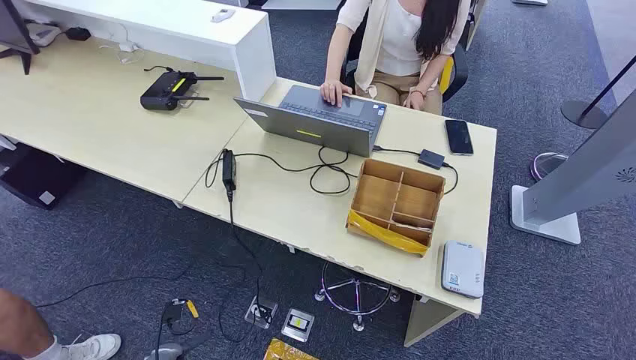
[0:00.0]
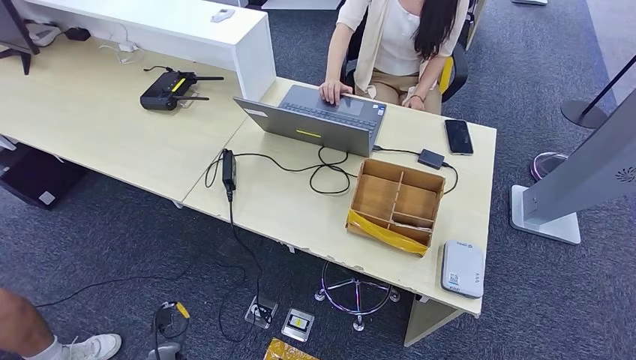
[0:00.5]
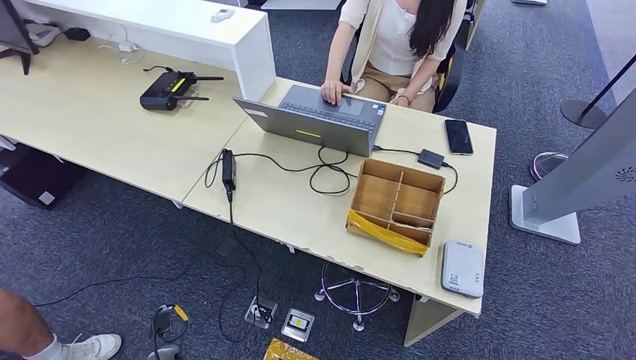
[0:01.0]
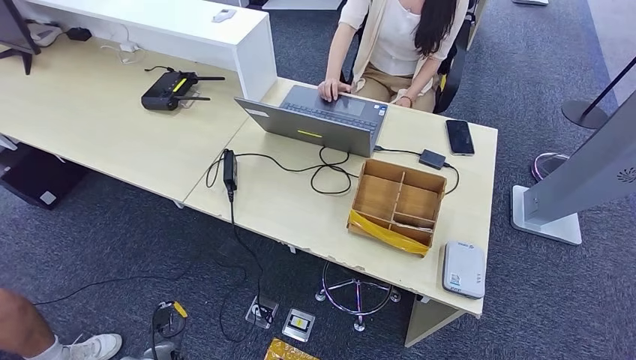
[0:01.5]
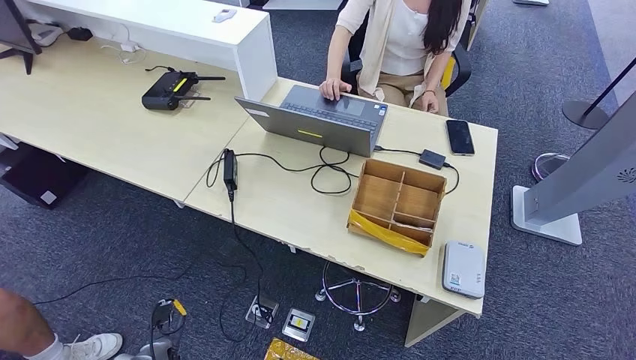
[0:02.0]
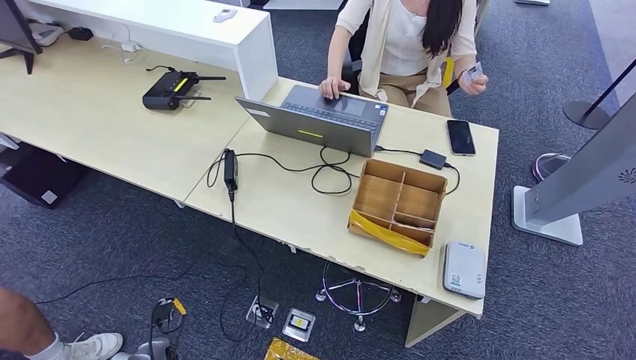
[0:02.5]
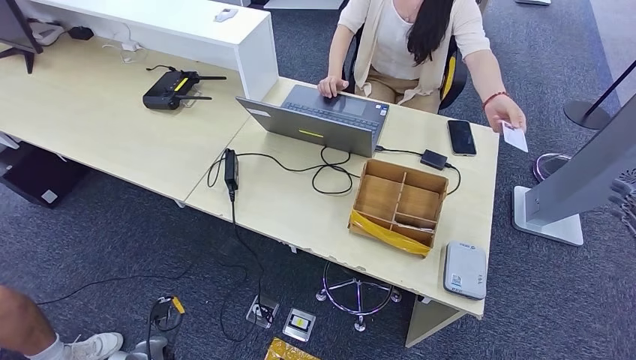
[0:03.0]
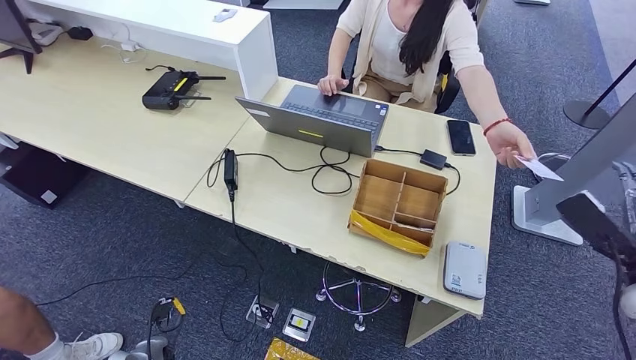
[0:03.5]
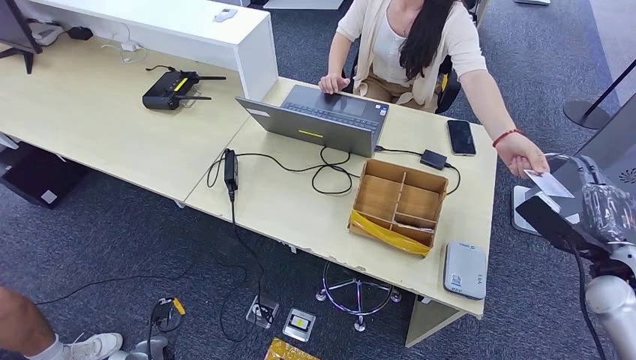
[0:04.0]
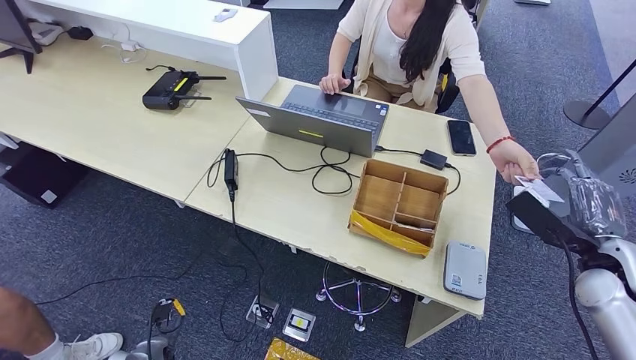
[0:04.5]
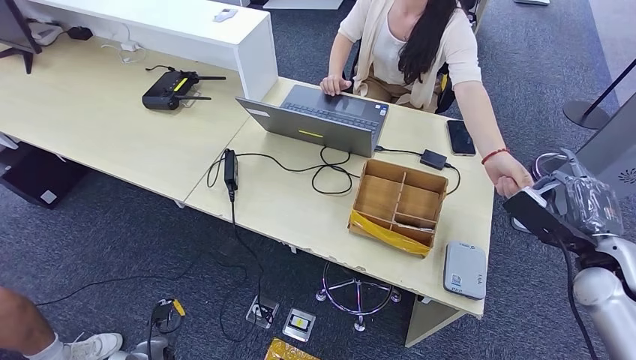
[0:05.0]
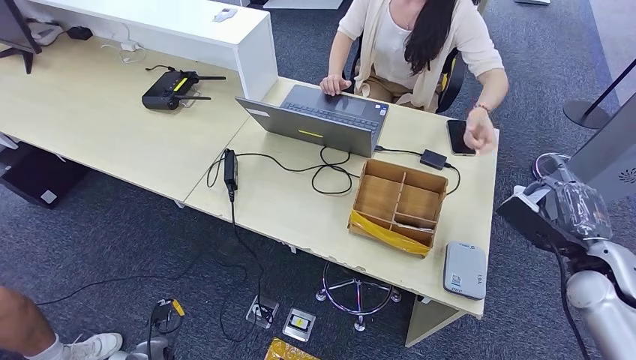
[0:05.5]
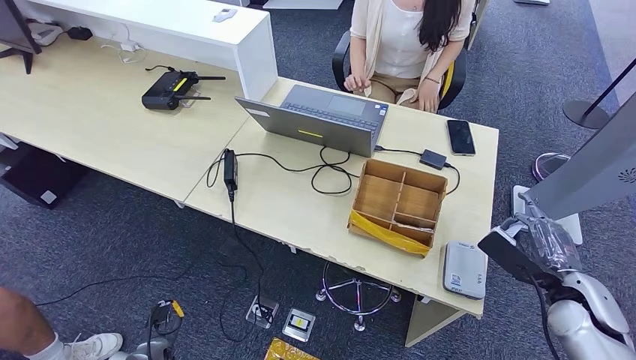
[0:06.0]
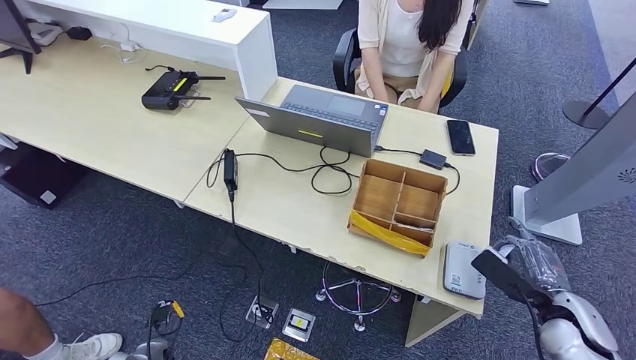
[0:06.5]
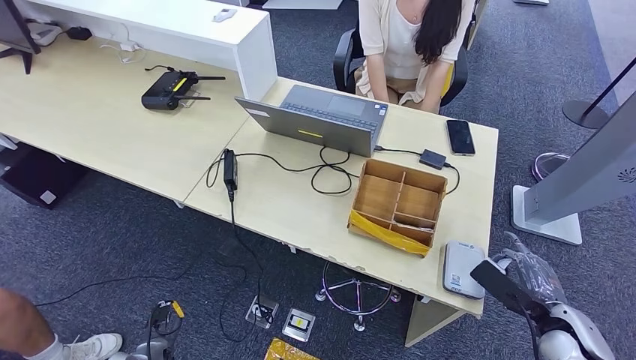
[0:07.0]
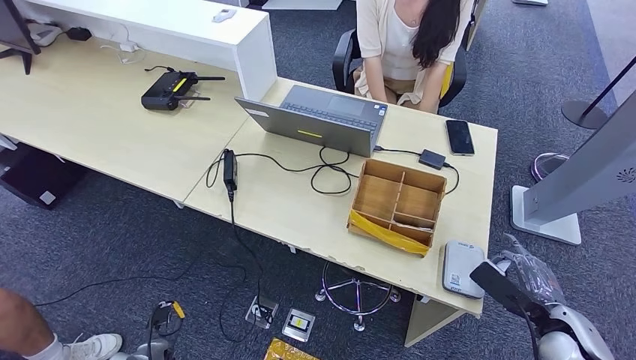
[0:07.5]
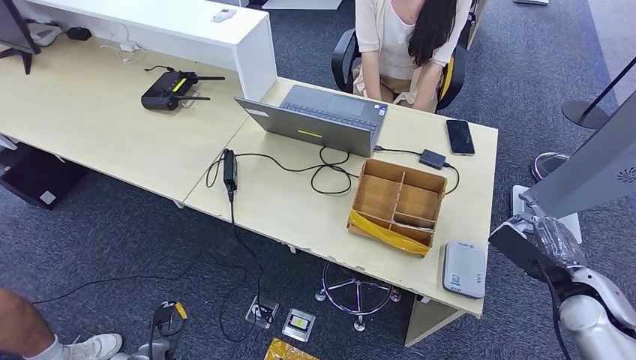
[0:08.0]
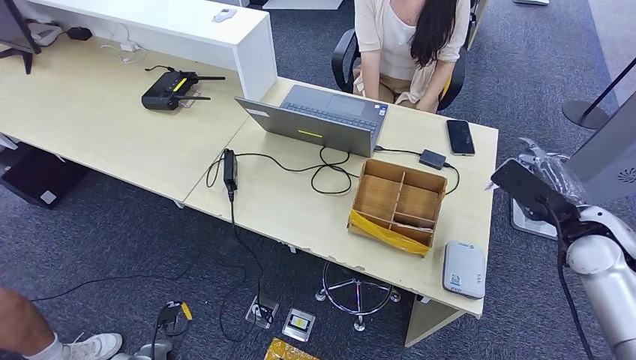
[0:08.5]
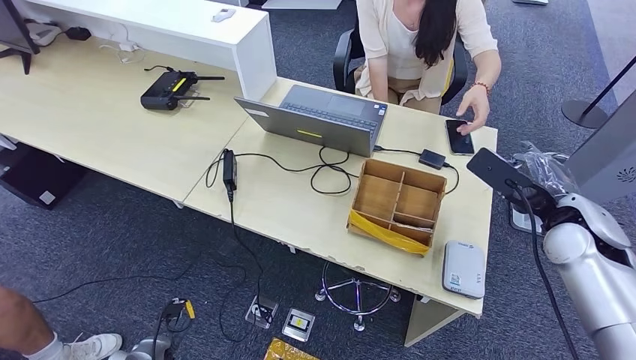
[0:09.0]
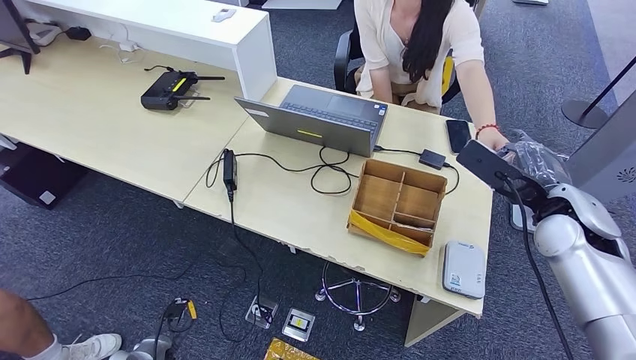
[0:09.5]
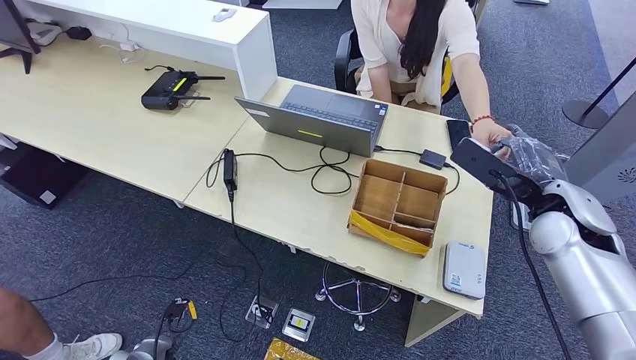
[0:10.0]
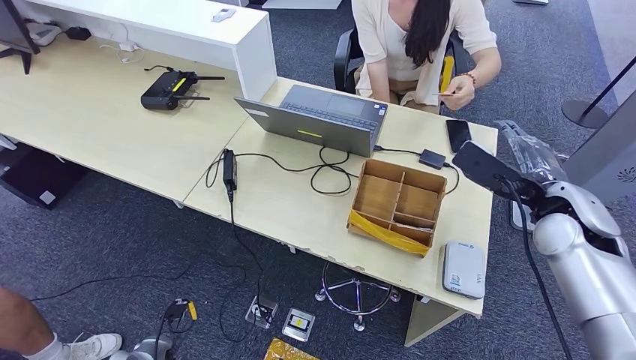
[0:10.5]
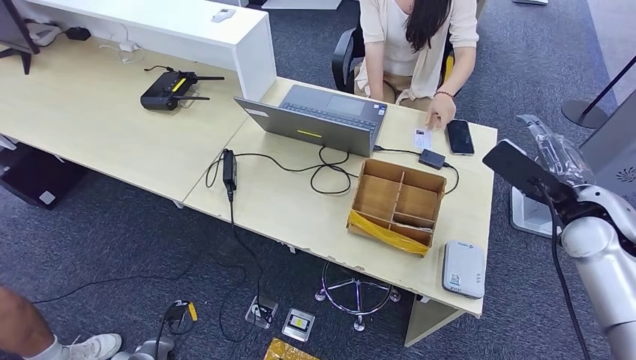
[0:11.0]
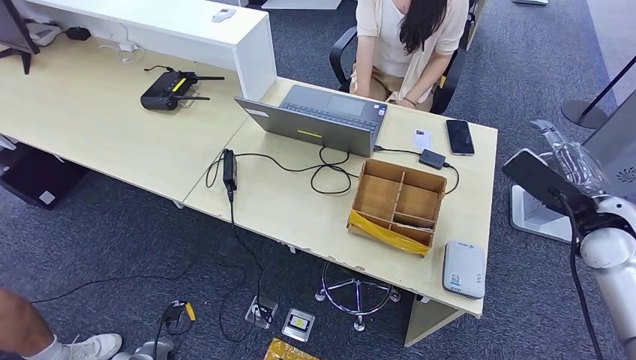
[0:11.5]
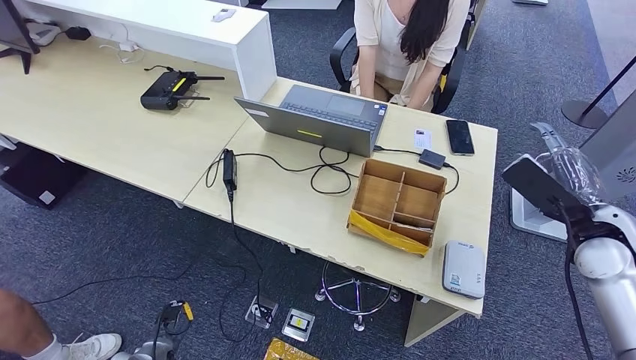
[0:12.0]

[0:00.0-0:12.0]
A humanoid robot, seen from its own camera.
Step, 0:00.0 to 0:05.5: Take the ID card from the person's hand.
Step, 0:06.0 to 0:07.0: Place the ID card on the card reader.
Step, 0:07.5 to 0:10.0: Hand the ID card to the person.
0:02.0 to 0:04.0: The right hand heads to the left and forward, covering about 30 cm.
0:04.0 to 0:06.0: The right hand travels downward by some 5 cm.
0:08.0 to 0:10.0: The right hand goes approximately 15 cm to the left and upward.
0:10.0 to 0:12.0: The right hand is displaced to the right by approximately 5 cm.

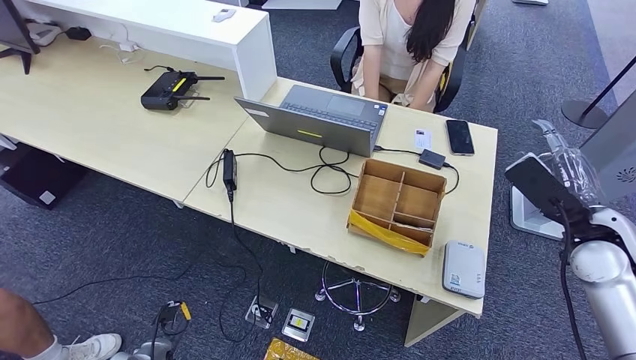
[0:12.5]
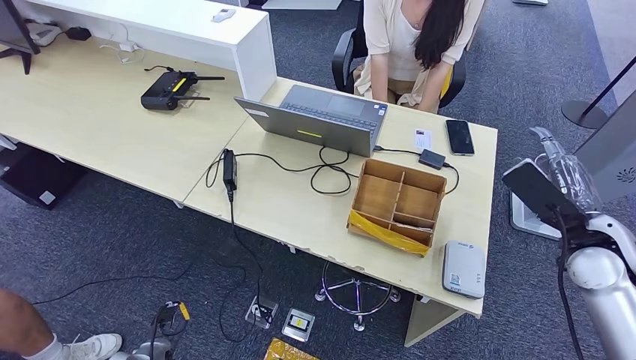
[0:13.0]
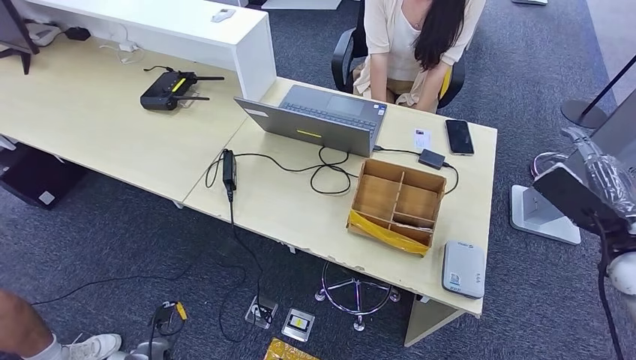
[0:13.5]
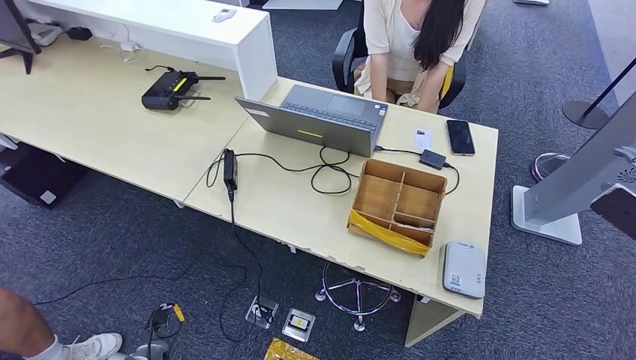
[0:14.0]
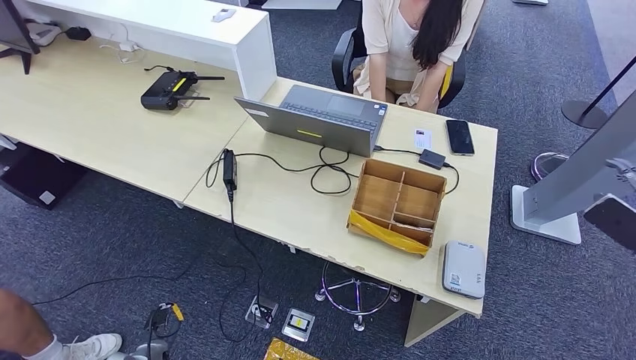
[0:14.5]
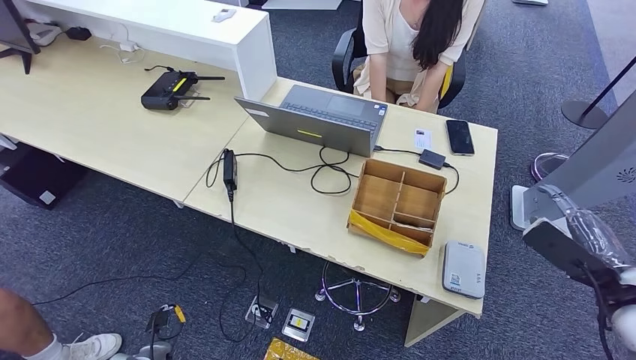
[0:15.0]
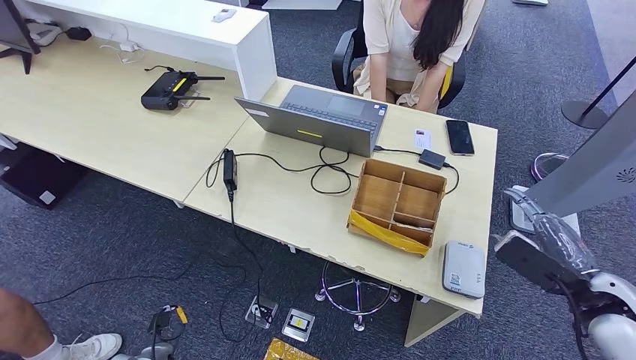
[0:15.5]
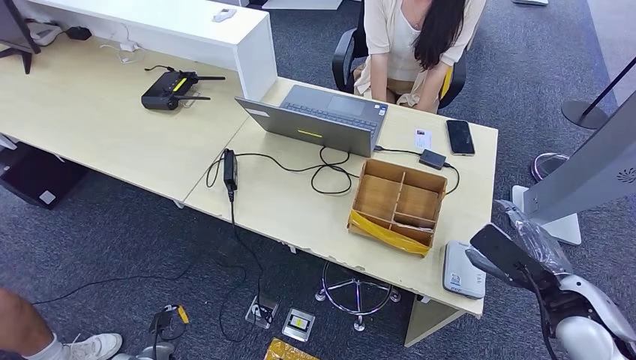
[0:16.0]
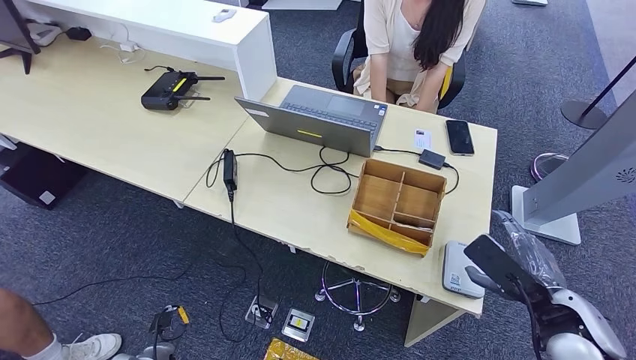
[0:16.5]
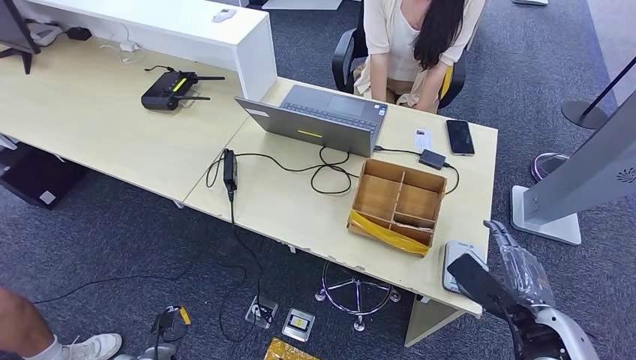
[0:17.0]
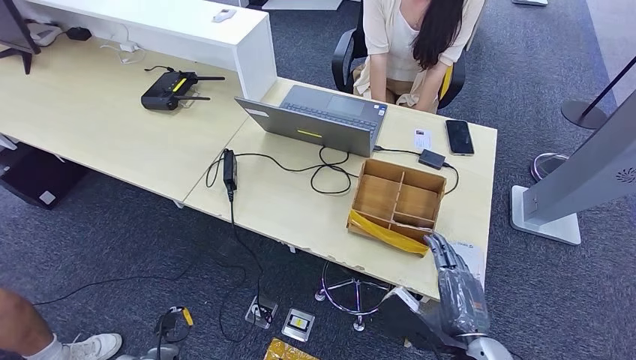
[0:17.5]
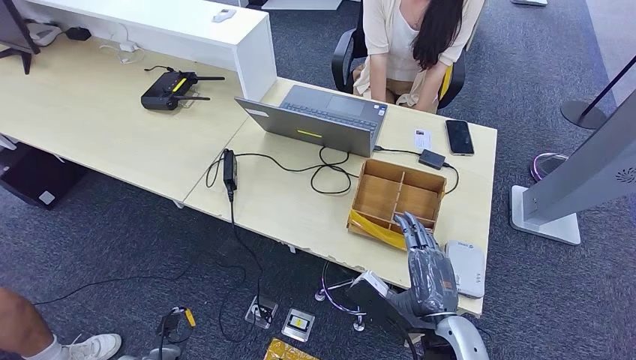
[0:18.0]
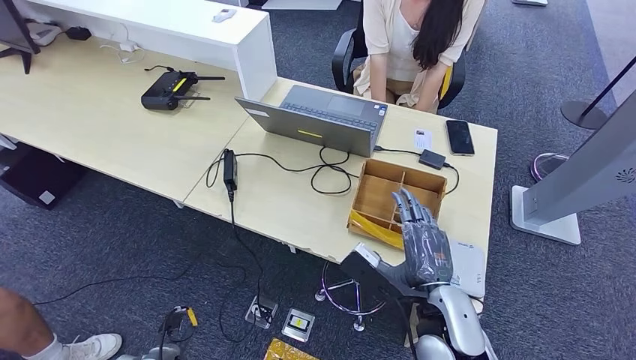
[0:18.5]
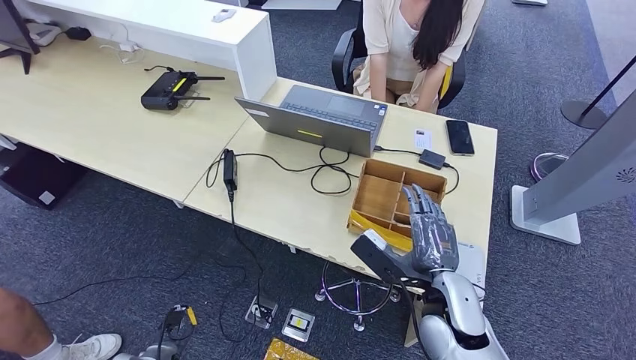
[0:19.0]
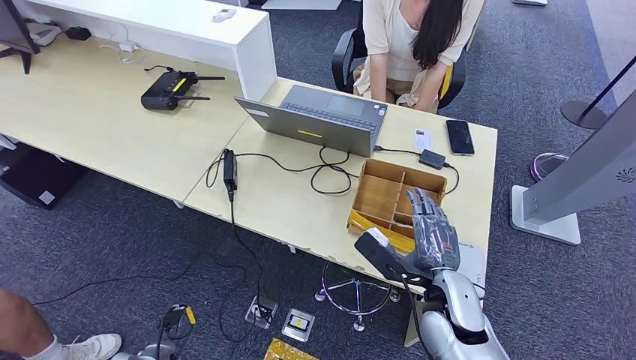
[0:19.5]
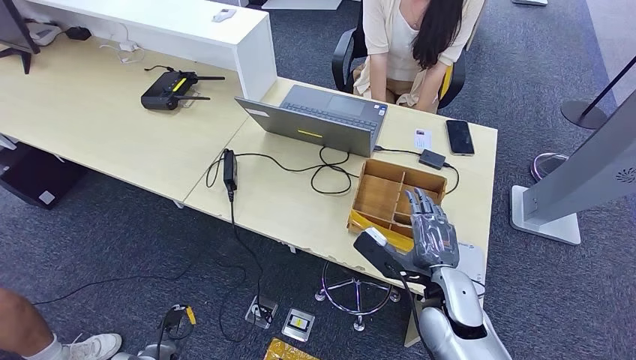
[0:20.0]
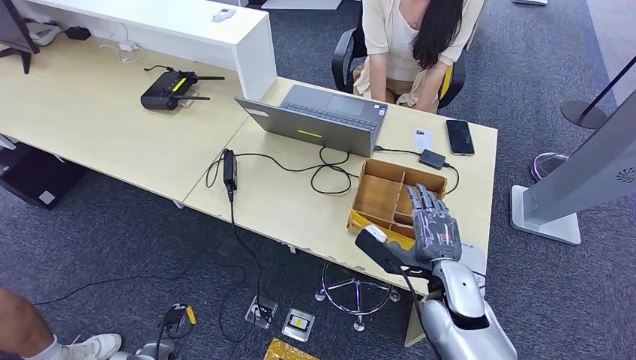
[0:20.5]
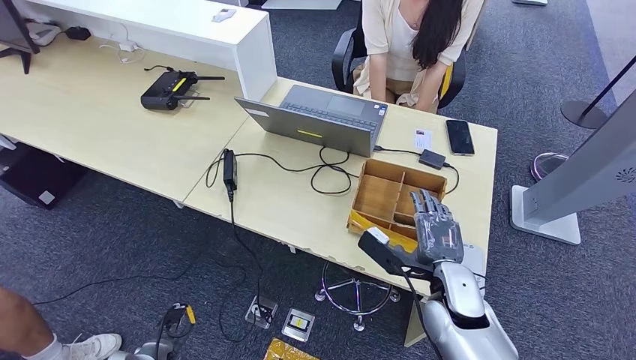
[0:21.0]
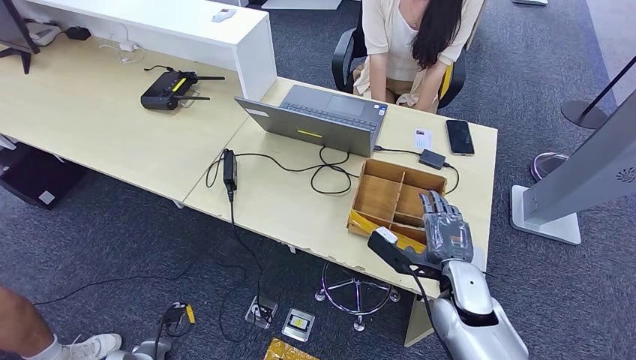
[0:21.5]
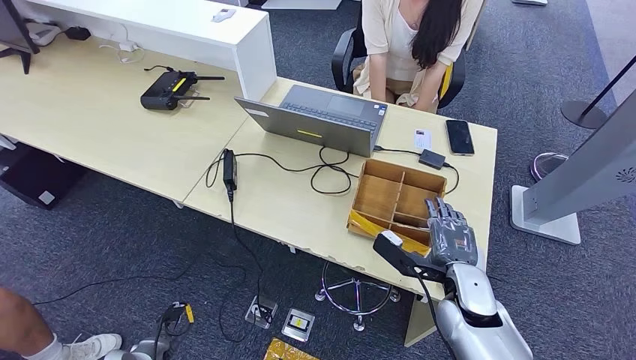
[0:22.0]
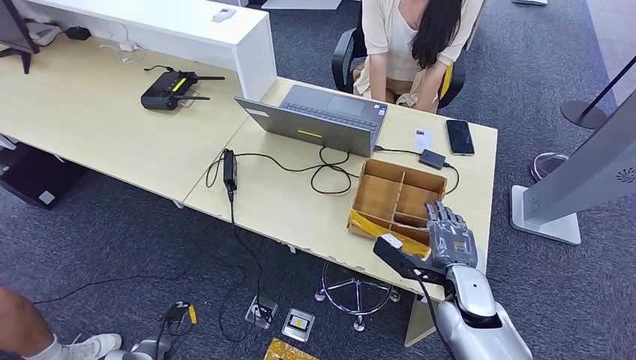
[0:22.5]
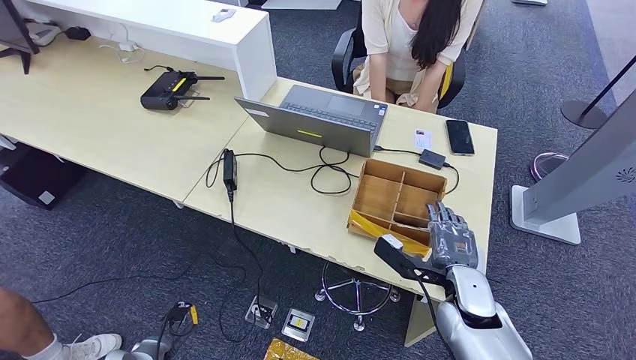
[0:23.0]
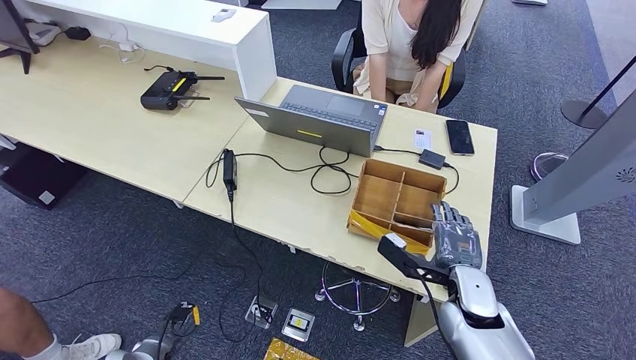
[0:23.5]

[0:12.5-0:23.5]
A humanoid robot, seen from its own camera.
0:12.5 to 0:14.5: The right hand is displaced to the right by about 15 cm.
0:14.5 to 0:16.0: The right hand is displaced to the left, downward and backward by roughly 15 cm.
0:16.0 to 0:18.0: The right hand moves to the left and backward, about 20 cm.
0:18.0 to 0:20.0: The right hand travels forward by approximately 5 cm.
0:20.0 to 0:23.5: The hands stay close to where they were, moving slightly.
